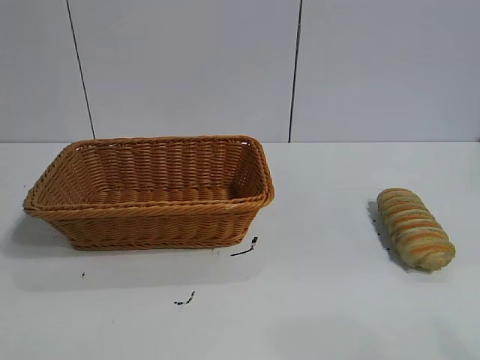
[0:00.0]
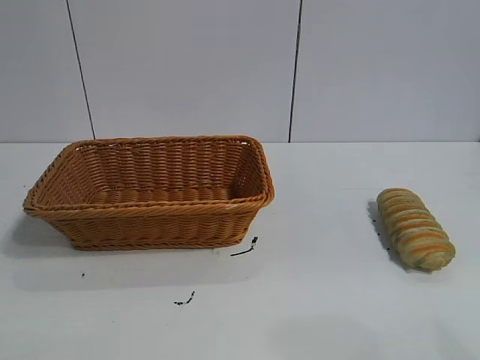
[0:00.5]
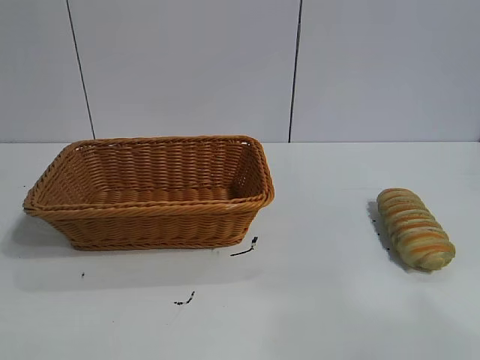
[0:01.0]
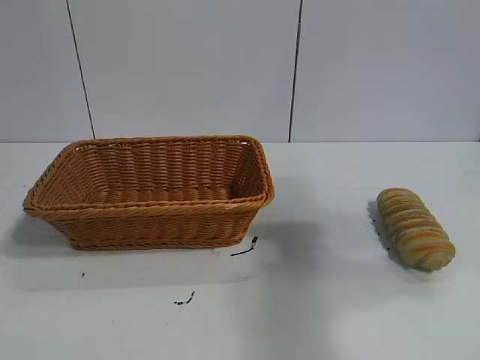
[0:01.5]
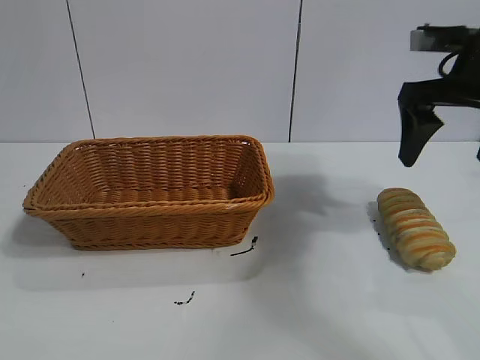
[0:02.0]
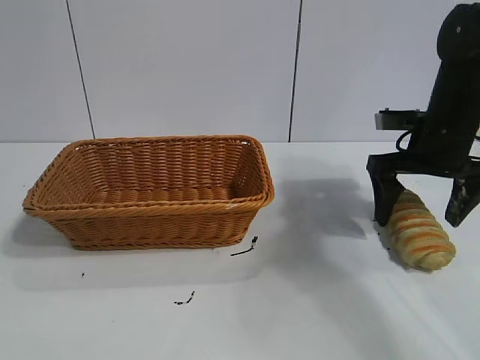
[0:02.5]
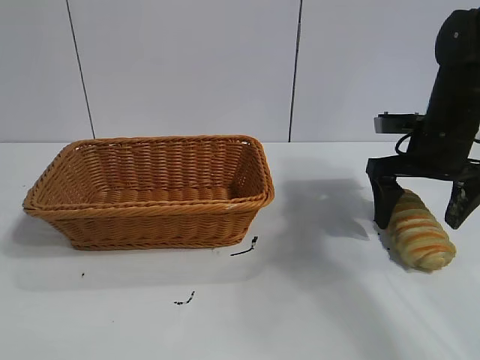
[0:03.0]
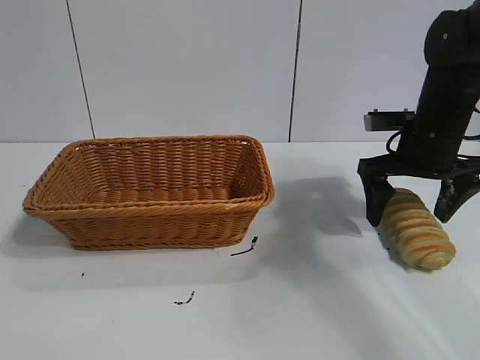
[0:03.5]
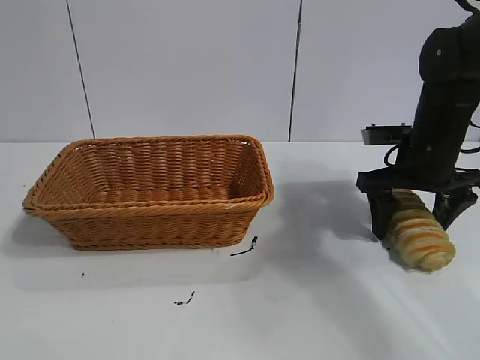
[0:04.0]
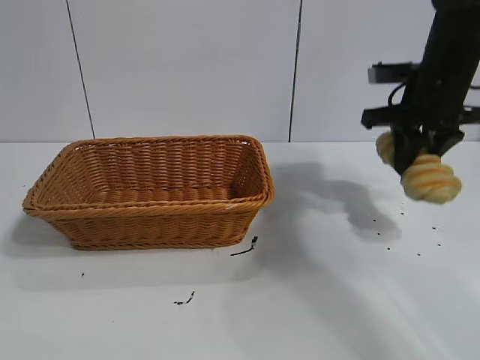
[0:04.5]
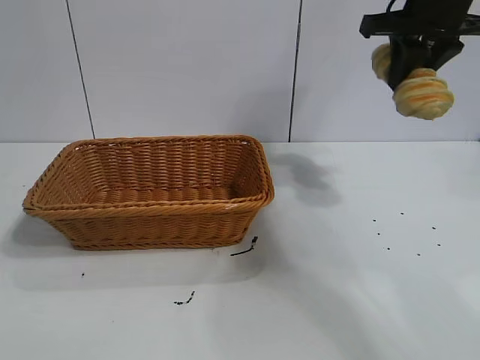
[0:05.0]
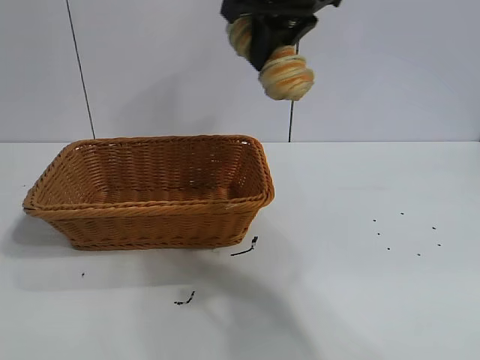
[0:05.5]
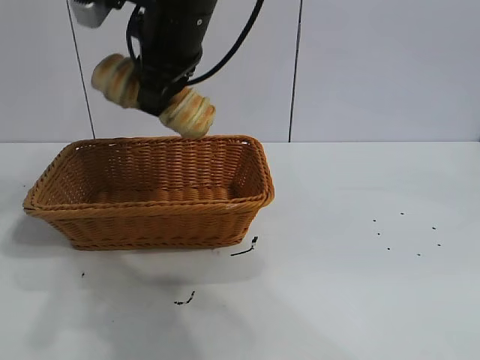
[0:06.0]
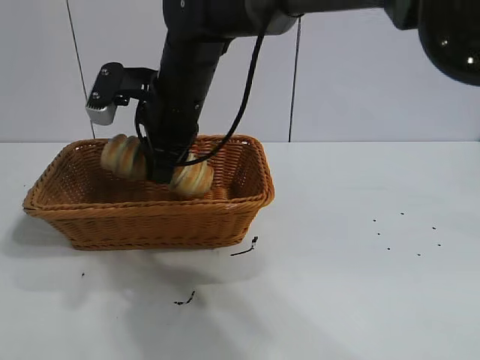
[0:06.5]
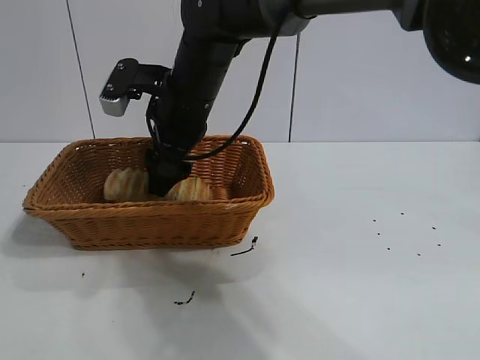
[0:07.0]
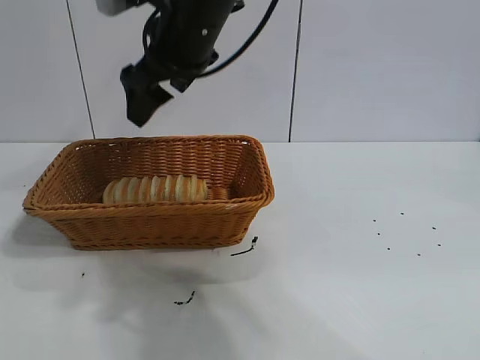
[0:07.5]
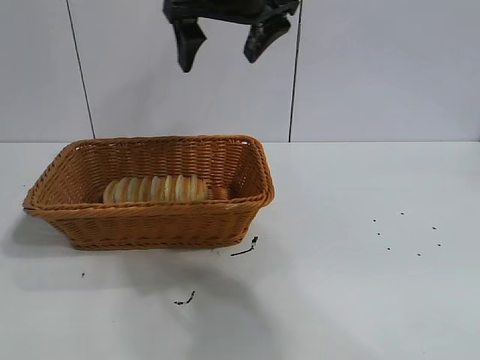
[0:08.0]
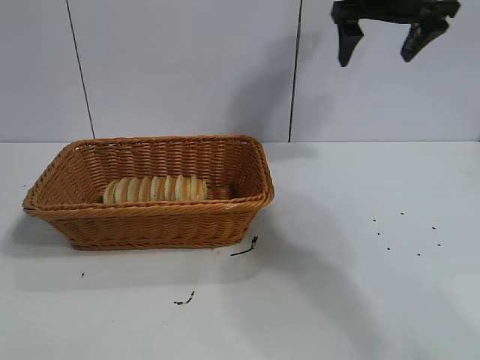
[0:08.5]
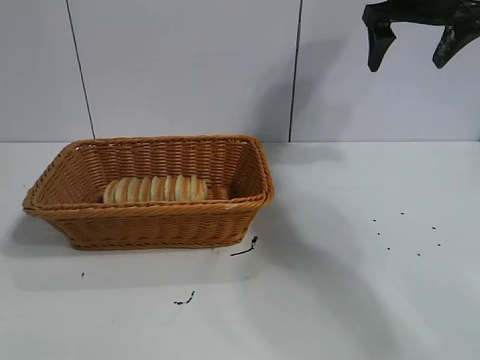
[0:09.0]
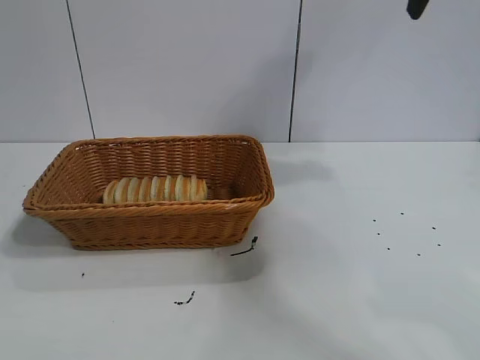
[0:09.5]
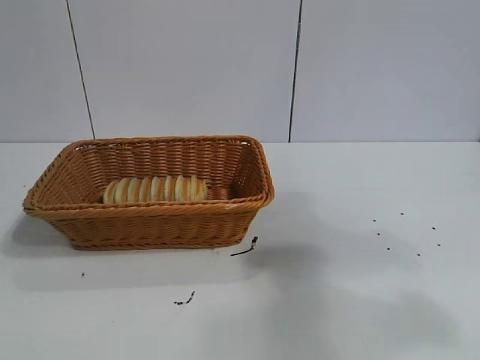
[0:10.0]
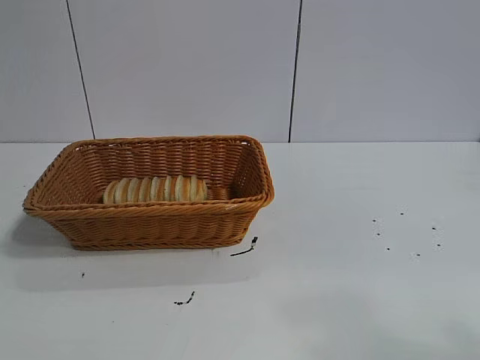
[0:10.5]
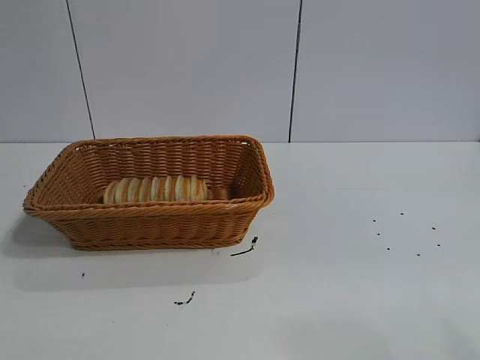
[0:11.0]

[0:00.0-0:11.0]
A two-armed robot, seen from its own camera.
Task of the whole recording: pick up the long bread and put it into the basket.
Step, 0:02.0 to 0:04.0: Grasp the long bread with right gripper.
Step, 0:04.5 to 0:07.0: Place the long bread in the basket with right gripper.

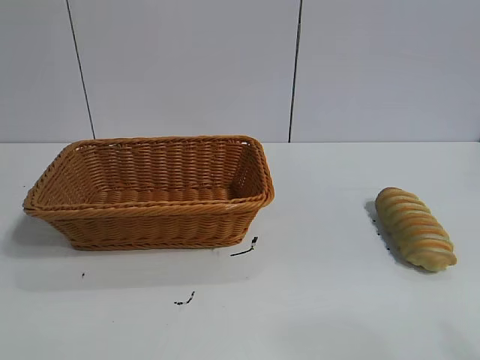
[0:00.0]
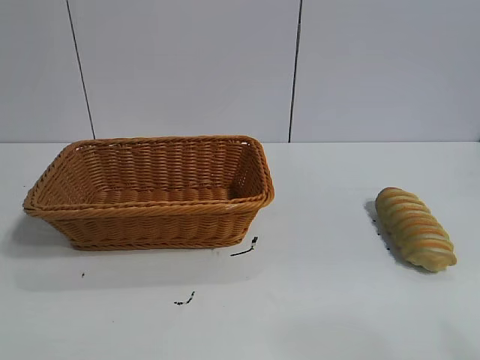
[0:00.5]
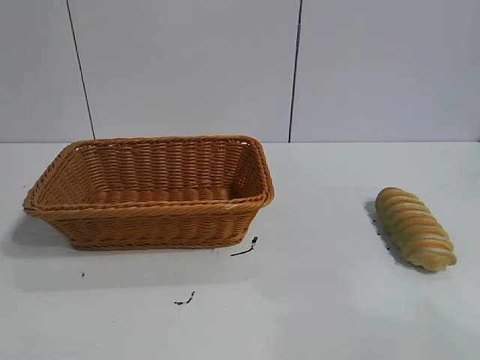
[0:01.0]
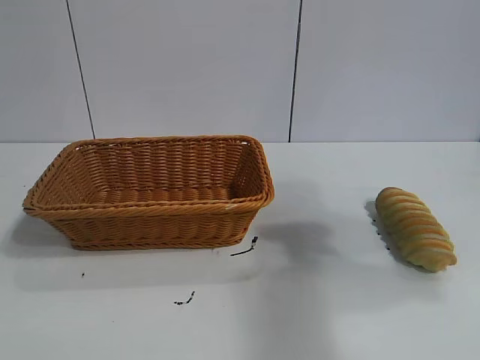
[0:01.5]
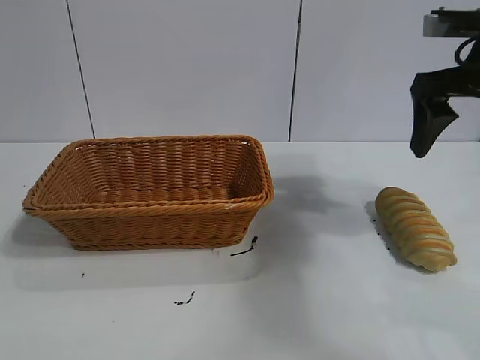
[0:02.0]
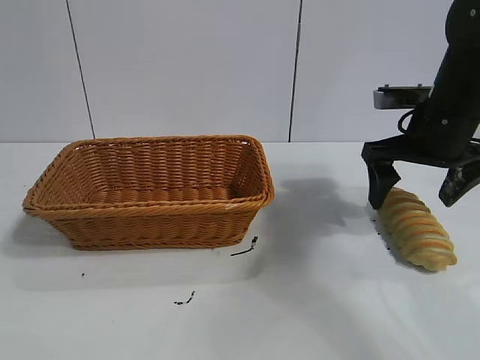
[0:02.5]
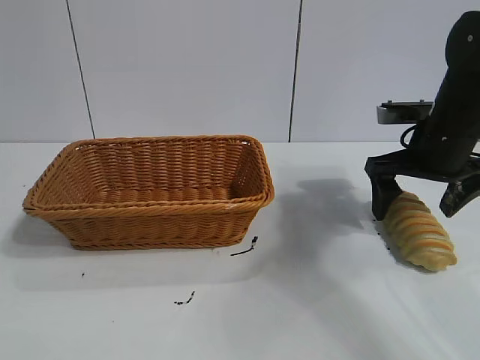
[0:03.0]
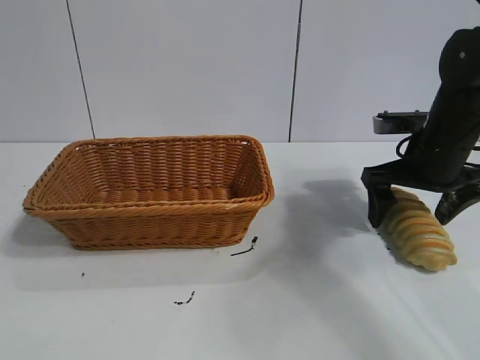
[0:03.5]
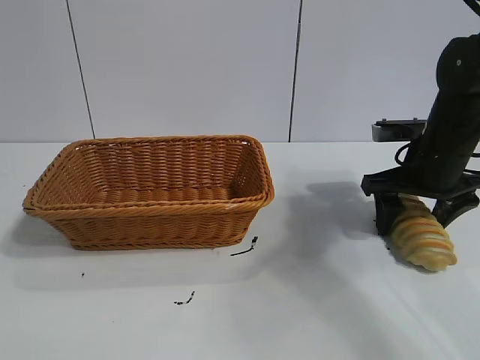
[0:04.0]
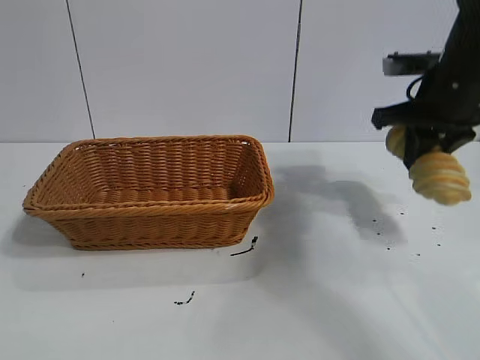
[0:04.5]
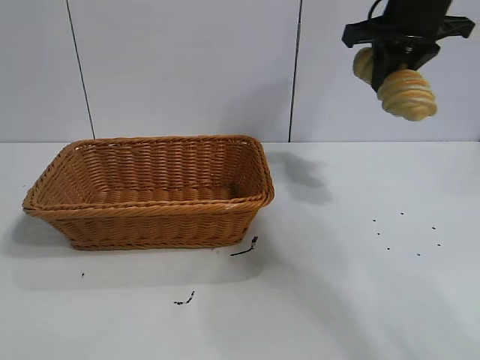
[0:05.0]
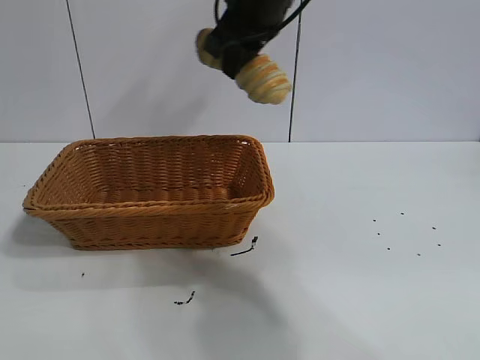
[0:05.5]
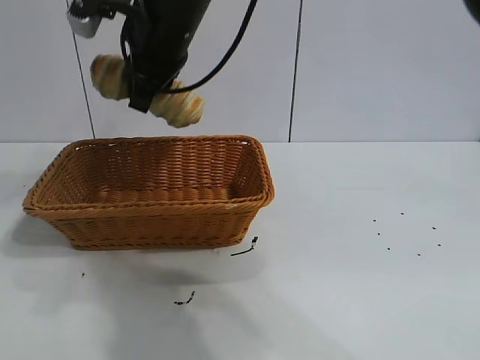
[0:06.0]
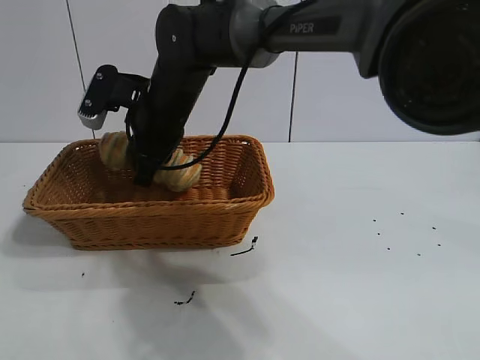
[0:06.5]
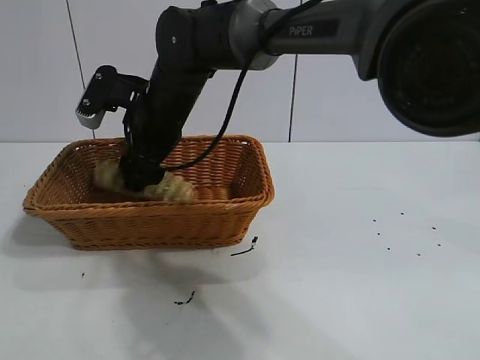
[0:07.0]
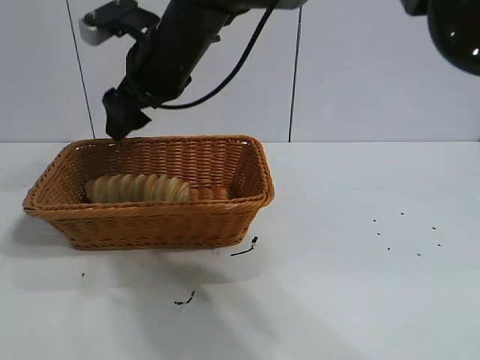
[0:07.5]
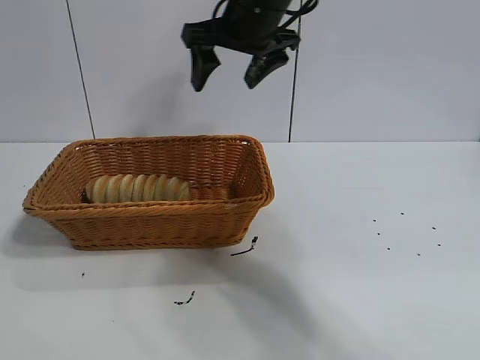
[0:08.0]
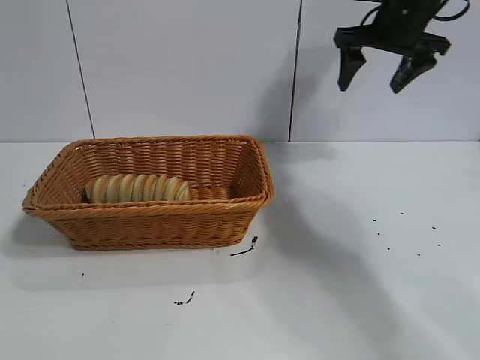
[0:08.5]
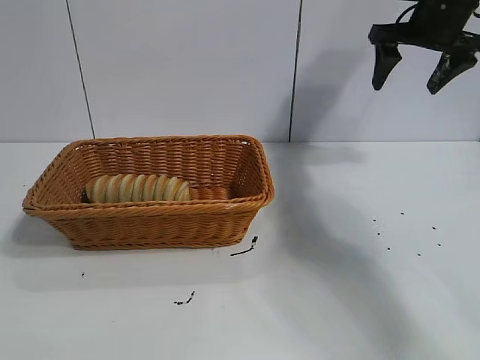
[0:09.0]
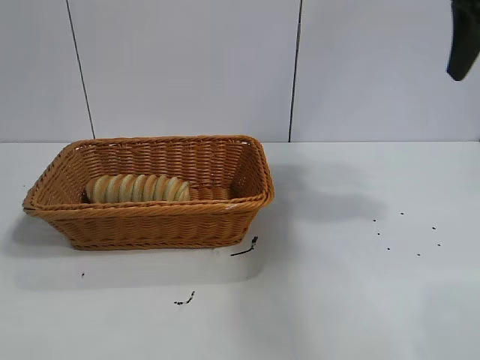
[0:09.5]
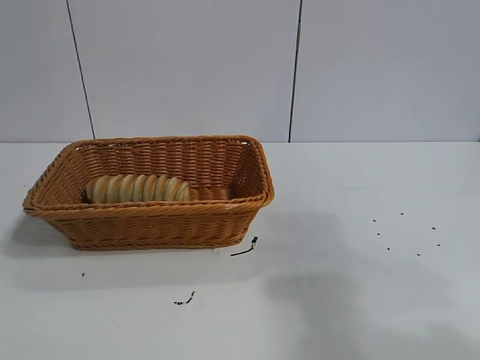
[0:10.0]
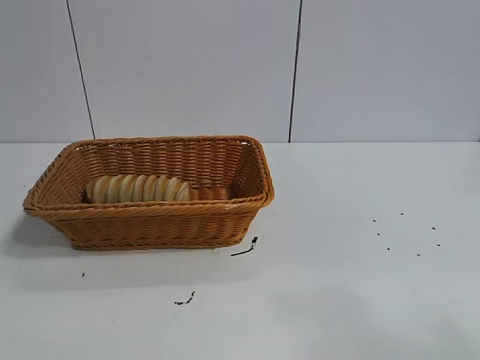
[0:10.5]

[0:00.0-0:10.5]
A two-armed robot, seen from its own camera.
Task of the whole recording: pick up the long bread and put it into the basket.
Step, 0:02.0 to 0:04.0: Grasp the long bread with right gripper.
Step, 0:04.5 to 0:07.0: Place the long bread in the basket with right gripper.

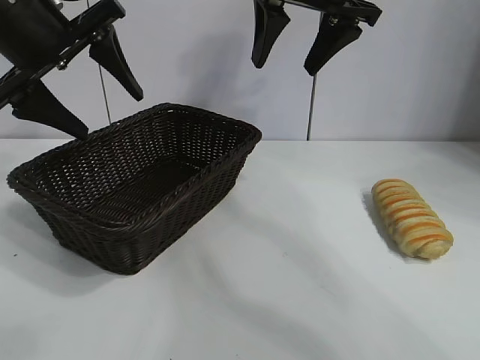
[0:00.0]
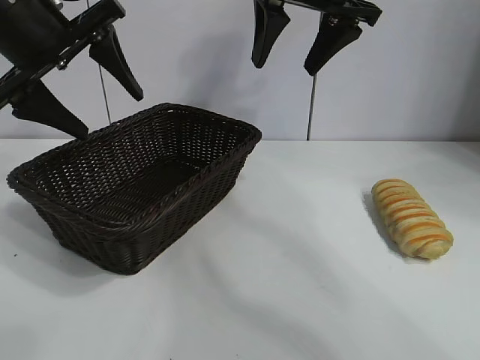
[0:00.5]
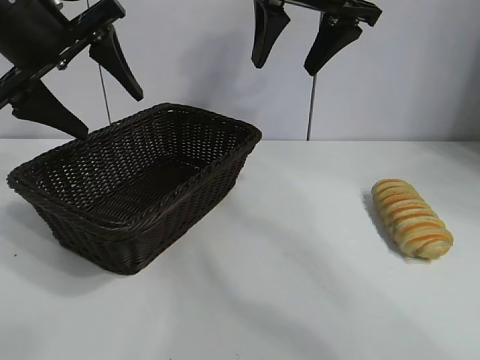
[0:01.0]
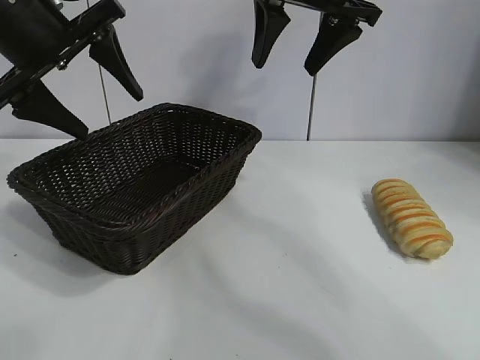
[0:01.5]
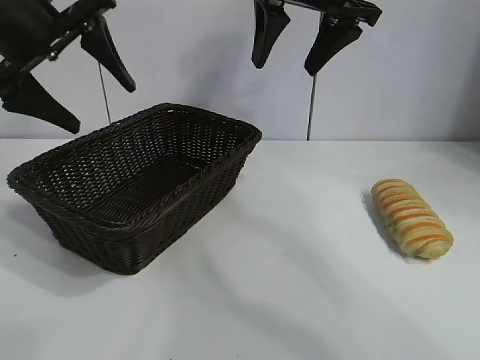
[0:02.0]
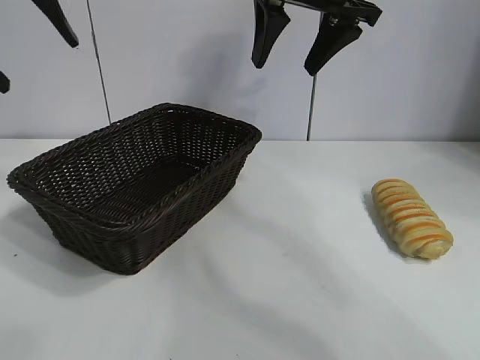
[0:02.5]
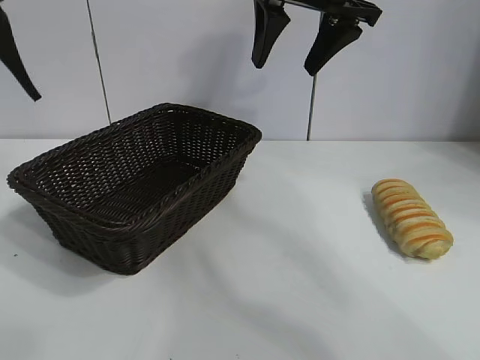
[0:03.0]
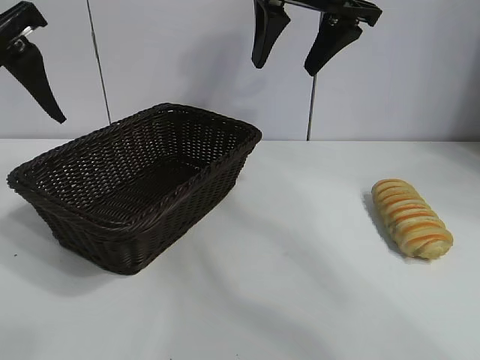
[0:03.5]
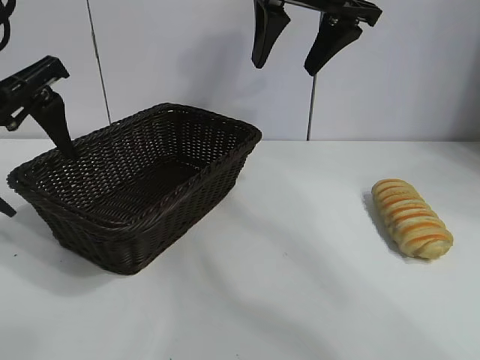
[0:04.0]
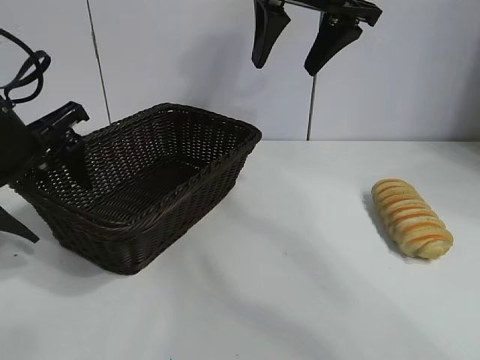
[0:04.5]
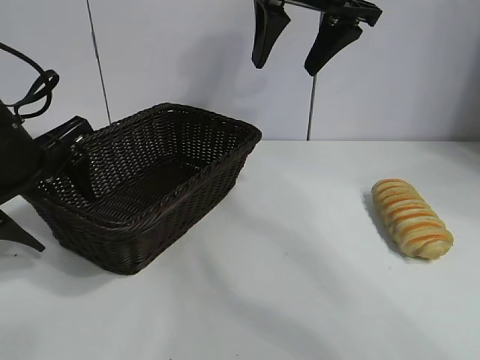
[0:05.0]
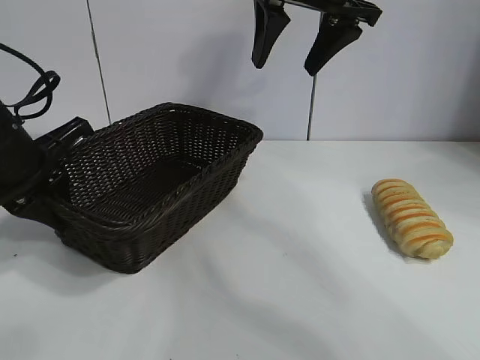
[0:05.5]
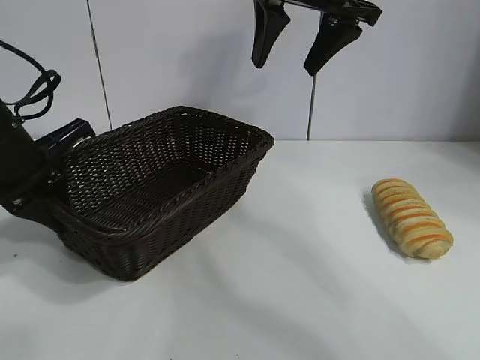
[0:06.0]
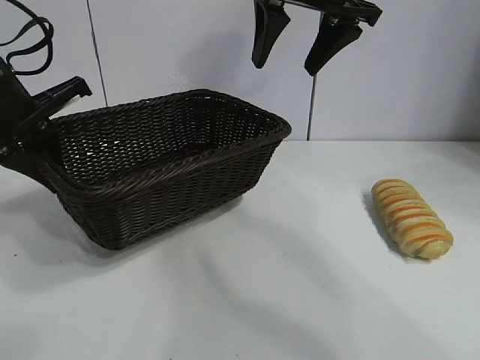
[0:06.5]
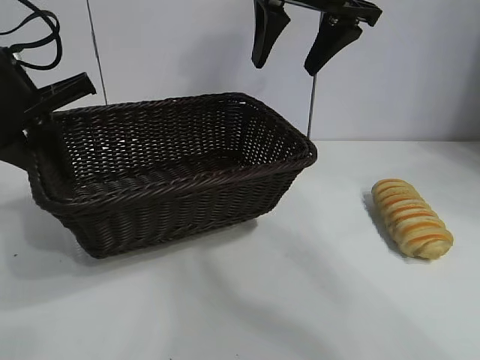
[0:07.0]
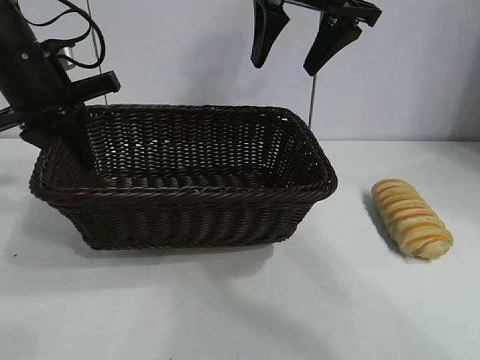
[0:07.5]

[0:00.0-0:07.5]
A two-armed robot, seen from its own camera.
Task of the whole recording: pick up the long bread and put it into the basket.
Step, 0:02.0 to 0:05.5: Grasp the basket with the left gripper.
